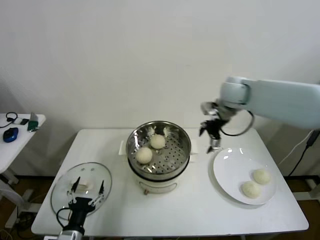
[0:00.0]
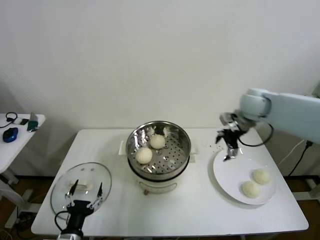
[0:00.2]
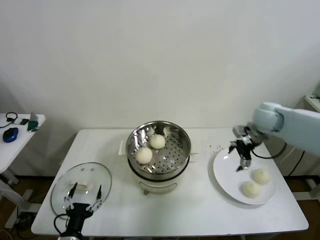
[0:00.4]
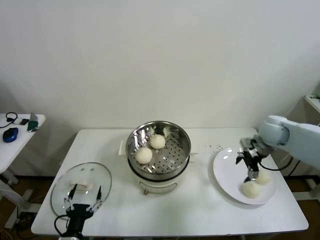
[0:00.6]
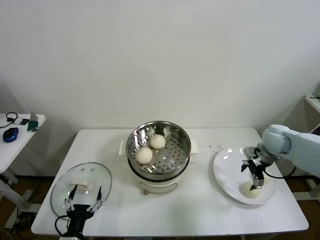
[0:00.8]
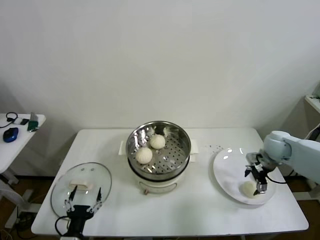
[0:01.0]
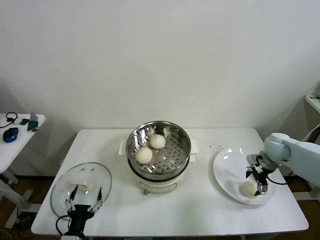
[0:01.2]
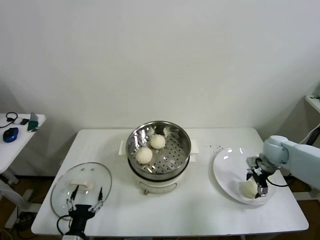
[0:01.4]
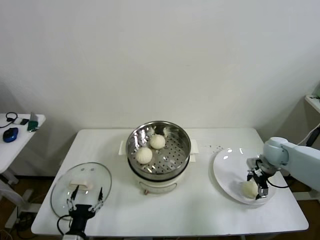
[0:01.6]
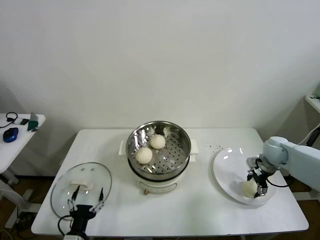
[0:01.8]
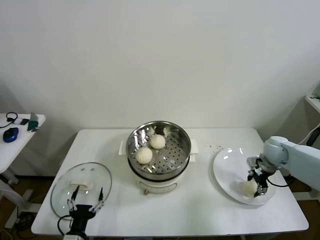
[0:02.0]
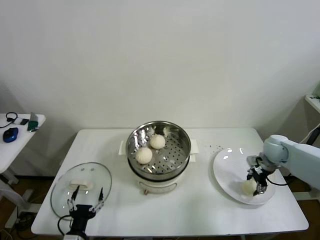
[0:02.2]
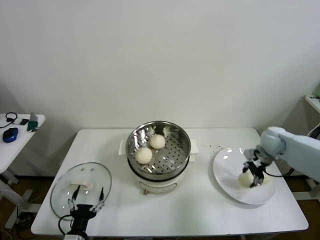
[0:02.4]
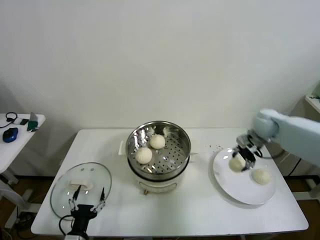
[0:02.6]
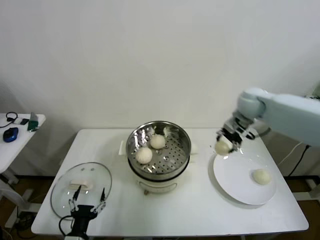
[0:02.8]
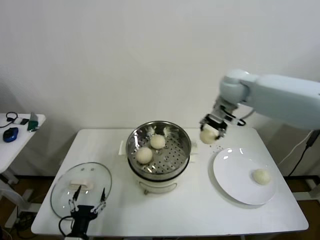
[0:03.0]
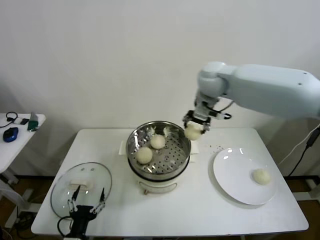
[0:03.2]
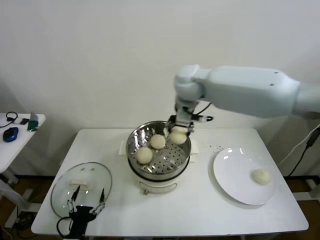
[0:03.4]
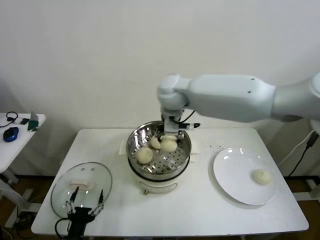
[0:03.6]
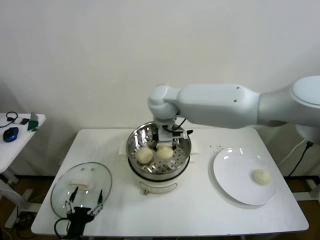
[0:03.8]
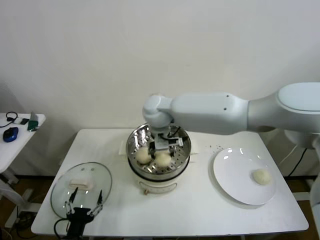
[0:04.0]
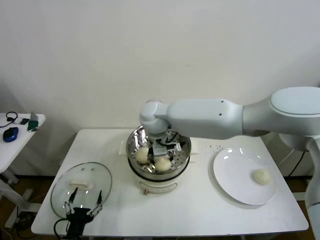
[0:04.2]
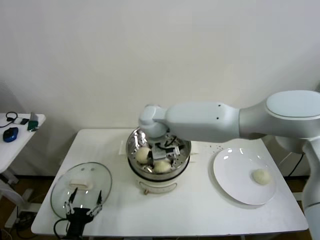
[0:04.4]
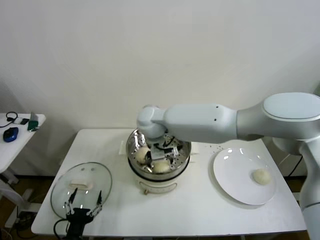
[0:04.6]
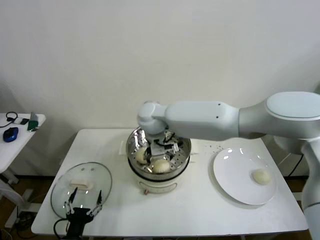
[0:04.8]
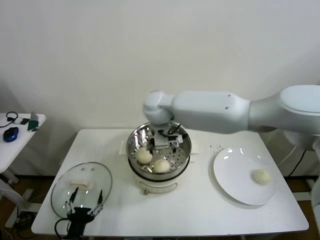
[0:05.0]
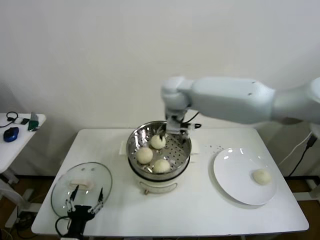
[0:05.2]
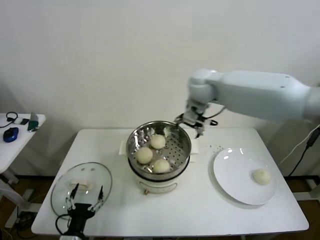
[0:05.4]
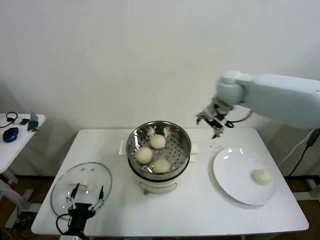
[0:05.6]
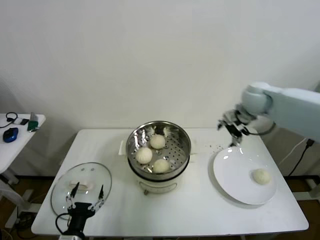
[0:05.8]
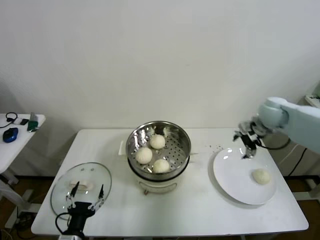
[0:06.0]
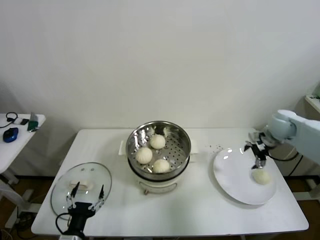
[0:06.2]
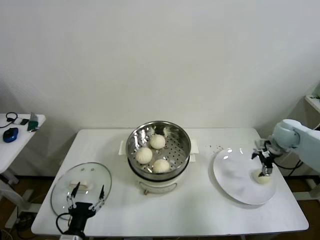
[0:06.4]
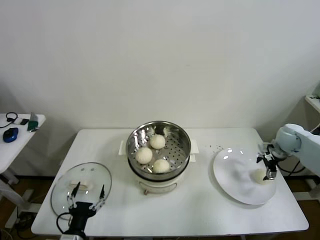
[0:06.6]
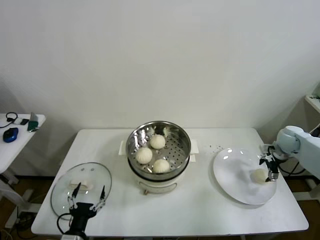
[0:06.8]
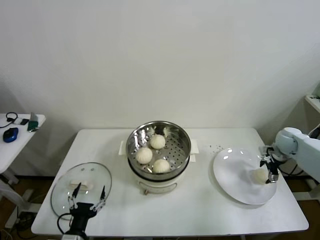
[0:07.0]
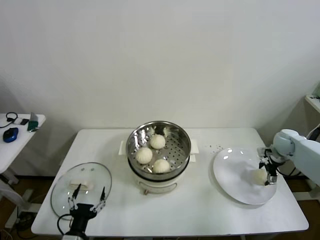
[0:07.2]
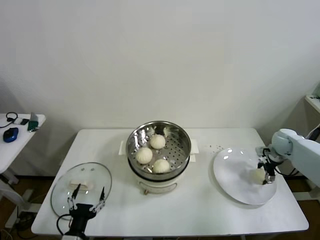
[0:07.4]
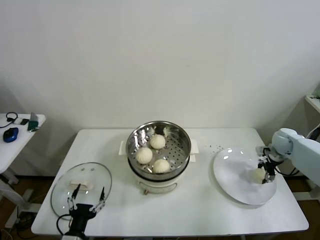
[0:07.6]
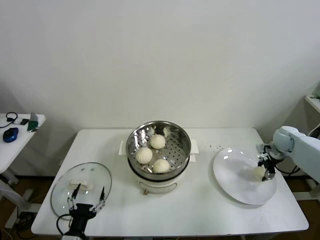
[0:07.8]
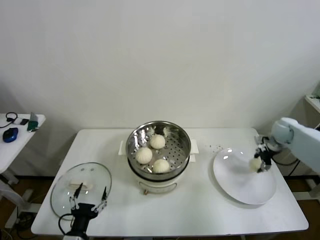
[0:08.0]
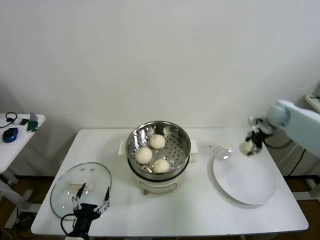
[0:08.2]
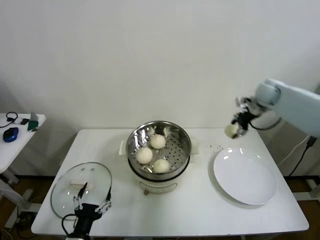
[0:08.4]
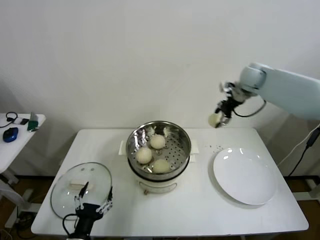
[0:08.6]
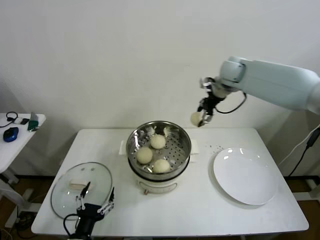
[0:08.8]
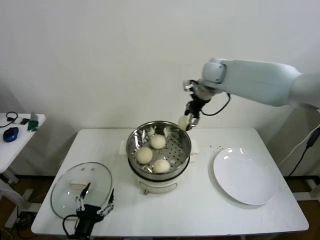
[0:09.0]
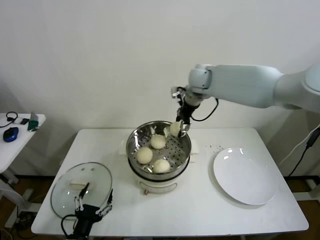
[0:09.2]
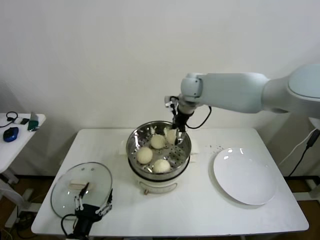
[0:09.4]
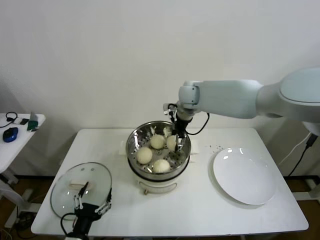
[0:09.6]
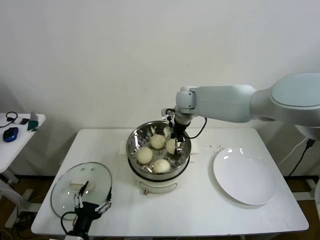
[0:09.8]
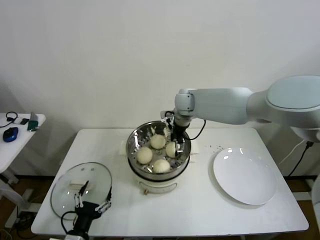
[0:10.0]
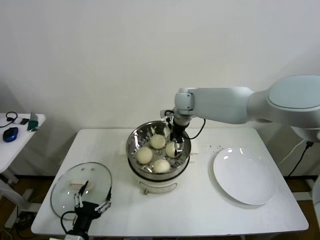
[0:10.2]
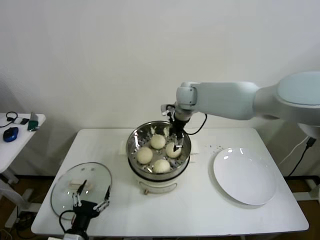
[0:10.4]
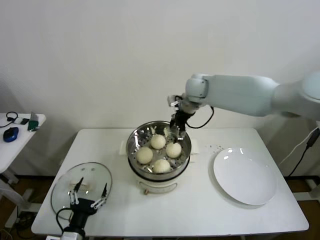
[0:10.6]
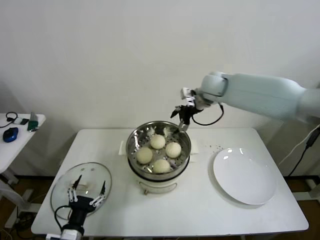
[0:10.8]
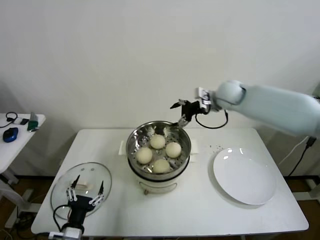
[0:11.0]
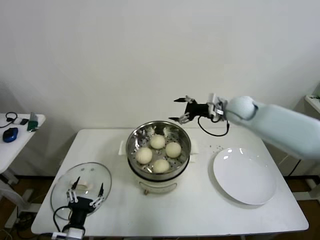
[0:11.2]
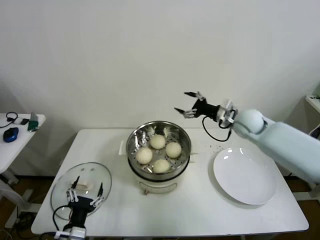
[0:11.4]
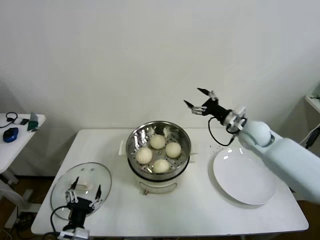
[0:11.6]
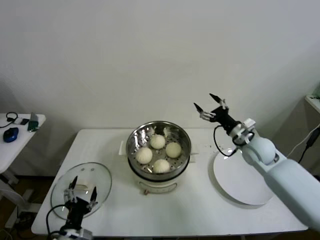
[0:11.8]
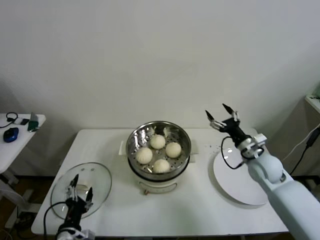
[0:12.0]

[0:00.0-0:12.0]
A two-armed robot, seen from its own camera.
Step, 0:00.0 to 0:01.8: Grasp the baozi in the plate with right gripper.
Step, 0:02.0 to 0:04.4: Place the baozi on the steamer with right gripper.
Step, 0:04.6 to 0:07.6: Grasp the baozi in the plate with right gripper.
Step, 0:07.8 to 0:10.0: Place the baozi on the steamer with right gripper.
0:00.0 to 0:01.6: The right gripper shifts about 25 cm downward and to the right.
0:01.6 to 0:03.0: The right gripper shifts some 30 cm upward and to the left, and closes up.
0:03.0 to 0:04.4: The right gripper heads to the left, covering about 25 cm, and opens up.
0:04.4 to 0:06.0: The right gripper heads to the right, covering approximately 40 cm, and opens up.
0:06.0 to 0:07.6: The right gripper goes approximately 20 cm downward and to the right, and closes its fingers.
0:07.6 to 0:09.0: The right gripper shifts roughly 40 cm to the left and upward.
0:09.0 to 0:10.4: The right gripper travels to the left and downward by some 10 cm, and opens its fingers.
0:10.4 to 0:12.0: The right gripper goes about 35 cm to the right, backward and downward.

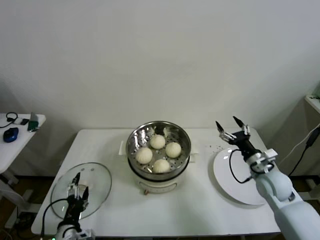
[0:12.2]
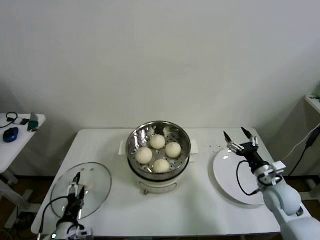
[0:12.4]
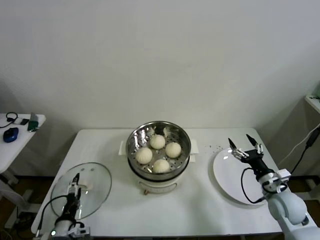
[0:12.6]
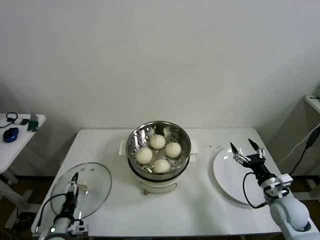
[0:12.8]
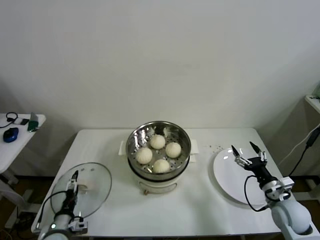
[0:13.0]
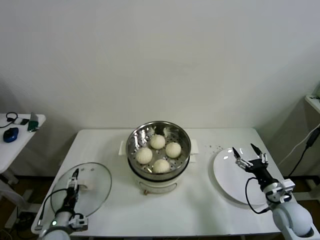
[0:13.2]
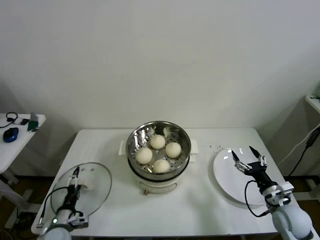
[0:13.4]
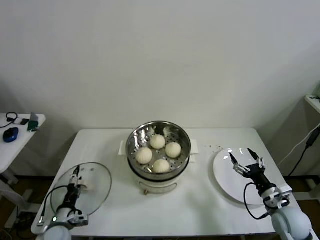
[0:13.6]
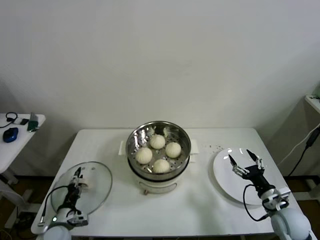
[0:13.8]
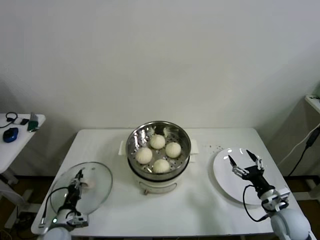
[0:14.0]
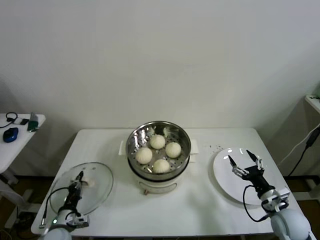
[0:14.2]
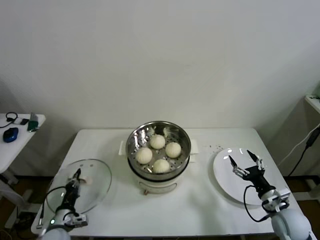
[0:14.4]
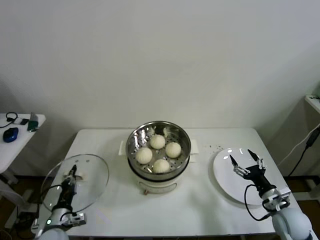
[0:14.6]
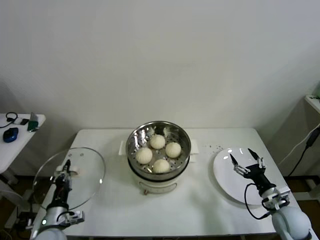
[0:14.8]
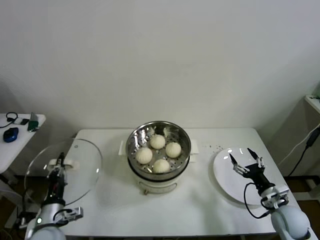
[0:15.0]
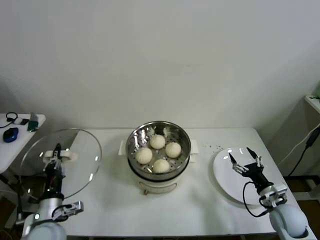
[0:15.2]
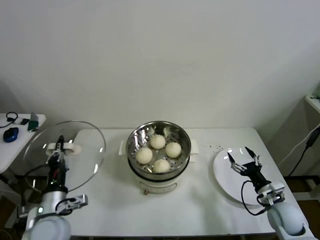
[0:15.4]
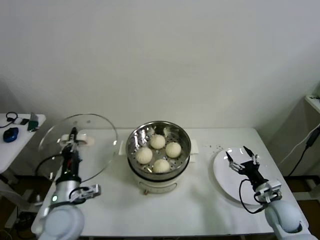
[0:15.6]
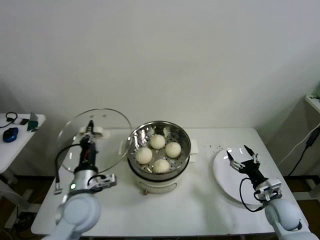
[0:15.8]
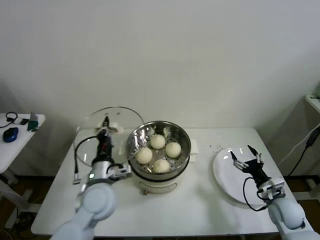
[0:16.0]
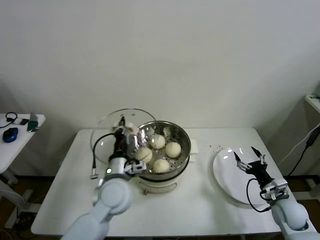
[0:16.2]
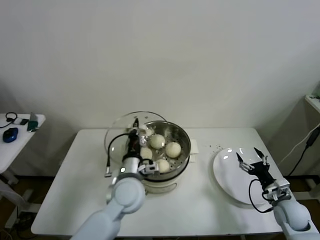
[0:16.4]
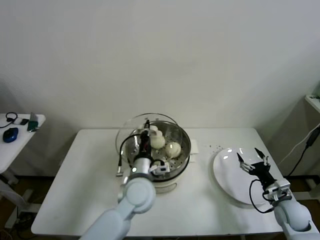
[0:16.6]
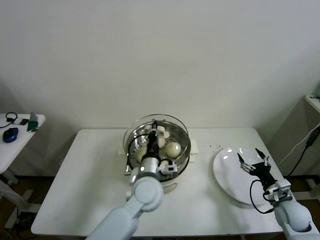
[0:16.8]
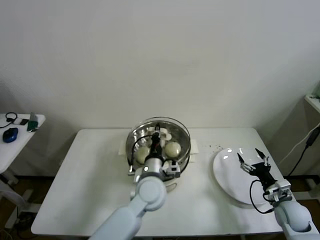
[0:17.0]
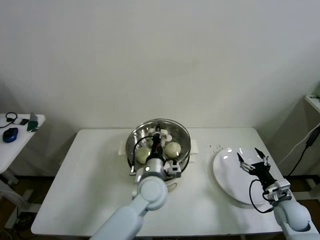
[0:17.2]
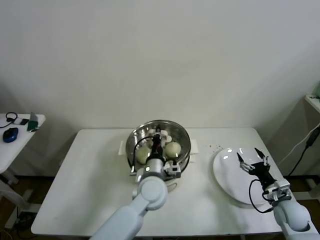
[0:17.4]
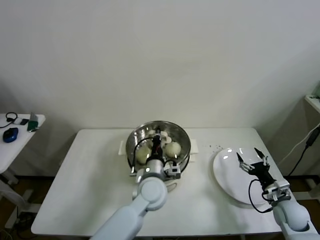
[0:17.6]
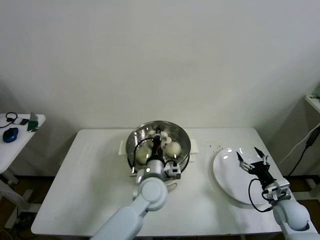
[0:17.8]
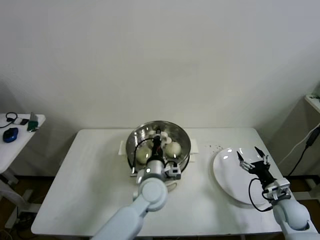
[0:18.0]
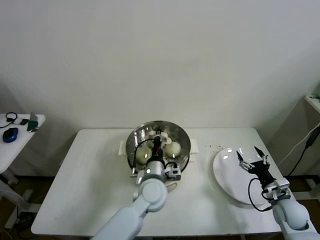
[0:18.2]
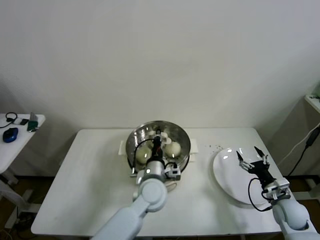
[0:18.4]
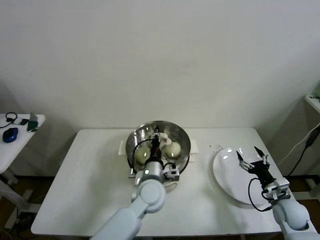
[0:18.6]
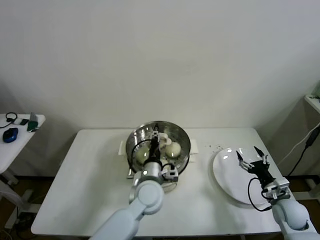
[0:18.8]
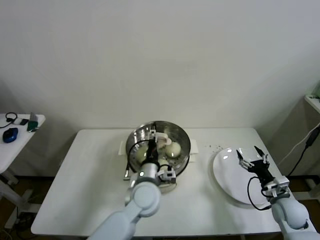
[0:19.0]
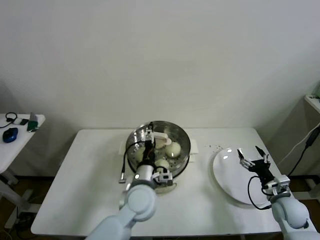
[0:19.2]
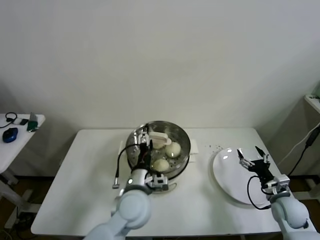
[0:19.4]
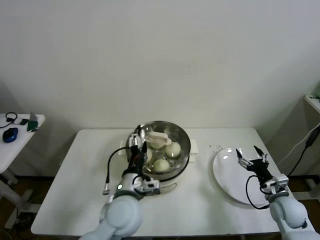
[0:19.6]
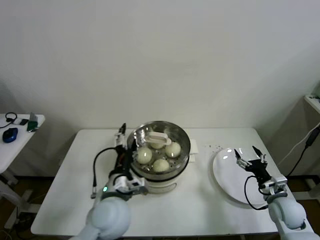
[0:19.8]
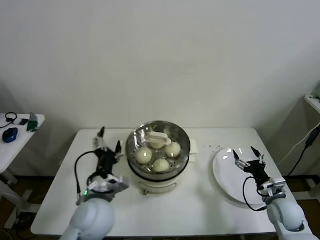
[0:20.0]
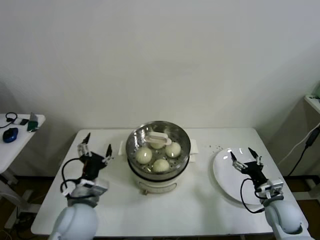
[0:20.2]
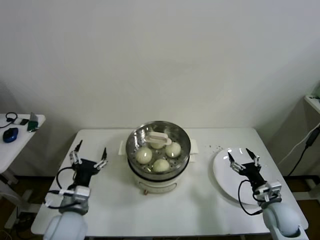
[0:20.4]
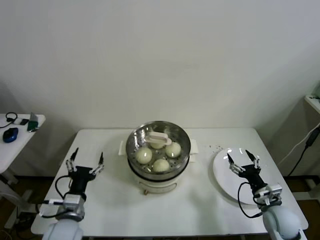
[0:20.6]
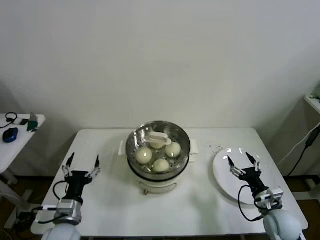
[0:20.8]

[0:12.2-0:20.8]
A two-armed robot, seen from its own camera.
Step, 0:12.2 to 0:14.2: Grasp the pot lid with left gripper.
Step, 0:14.4 to 0:18.4: Place the pot lid on the steamer with left gripper.
0:12.2 to 0:13.6: The right gripper heads backward and downward, covering roughly 10 cm. The left gripper goes about 10 cm forward, to the left and downward.
0:13.6 to 0:15.0: The left gripper moves upward, about 10 cm, and closes up.
0:15.0 to 0:16.6: The left gripper travels to the right and forward by approximately 30 cm.
0:16.6 to 0:18.0: The left gripper changes place by some 5 cm.
0:18.0 to 0:19.4: The left gripper shifts by approximately 5 cm, and opens its fingers.
0:19.4 to 0:20.8: The right gripper ends up roughly 5 cm from where it was; the left gripper heads to the left, covering about 20 cm.

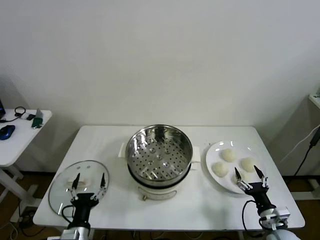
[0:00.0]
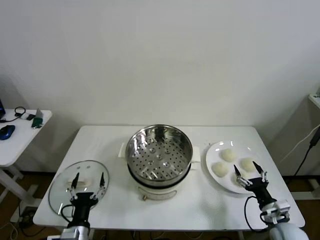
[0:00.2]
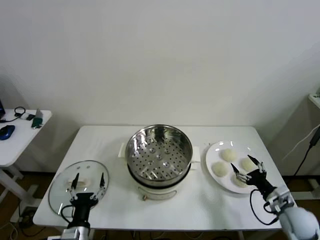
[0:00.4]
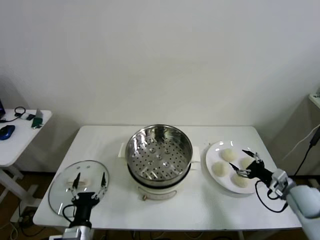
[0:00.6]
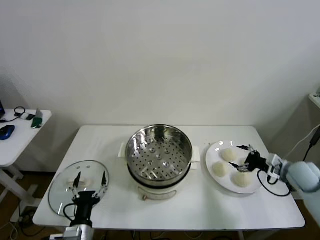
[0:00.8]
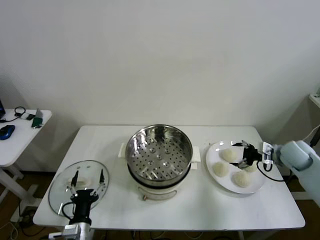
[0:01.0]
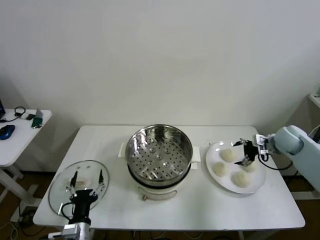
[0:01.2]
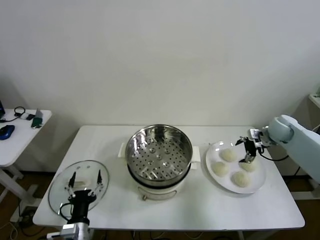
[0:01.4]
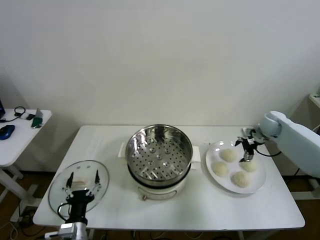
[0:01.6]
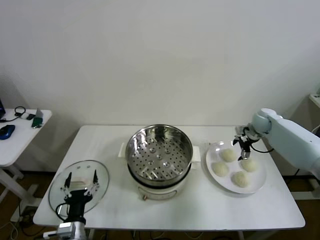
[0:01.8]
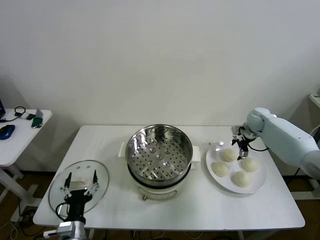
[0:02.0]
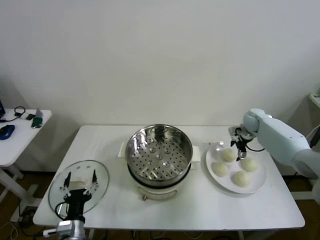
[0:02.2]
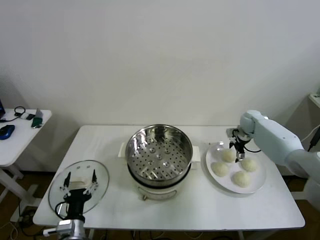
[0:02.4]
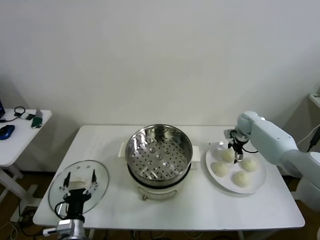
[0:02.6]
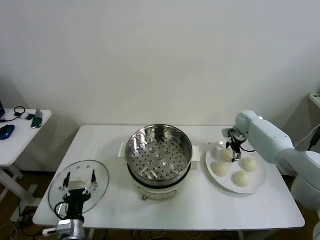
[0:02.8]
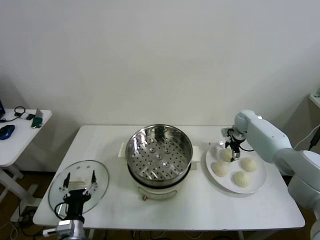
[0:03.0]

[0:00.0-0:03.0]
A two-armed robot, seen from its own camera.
0:01.6 to 0:03.0: The right gripper travels forward and to the left by roughly 10 cm.
